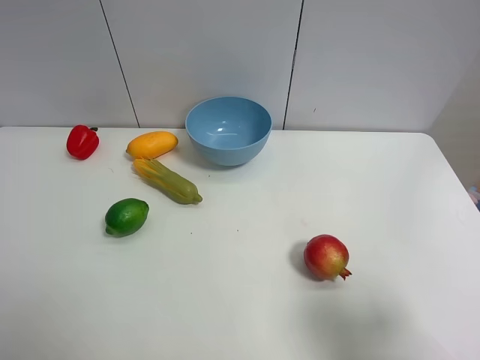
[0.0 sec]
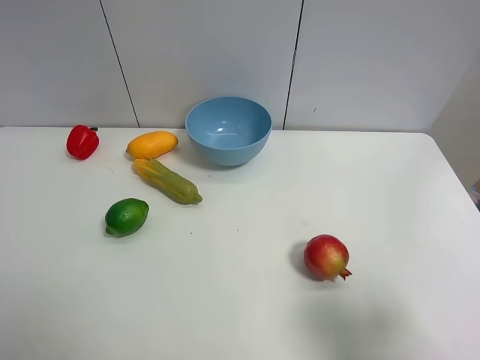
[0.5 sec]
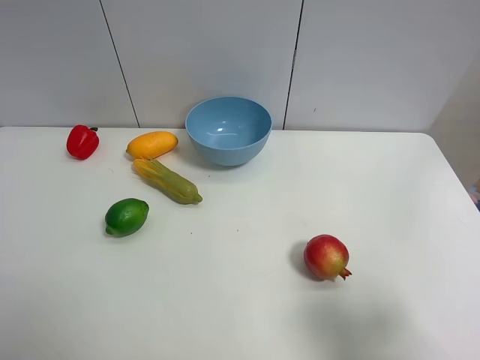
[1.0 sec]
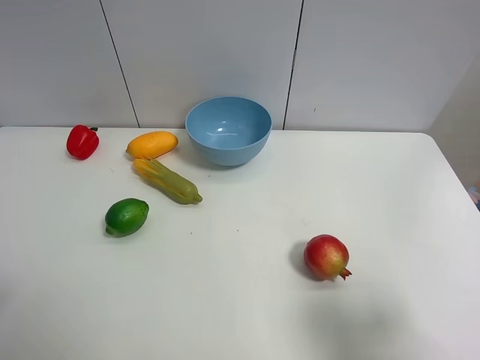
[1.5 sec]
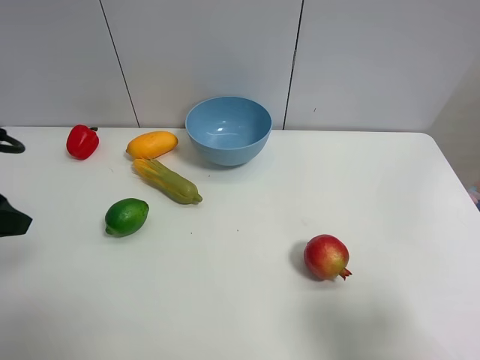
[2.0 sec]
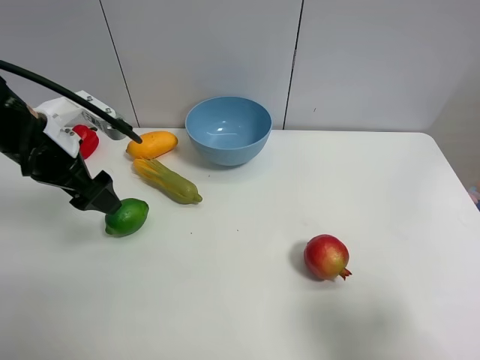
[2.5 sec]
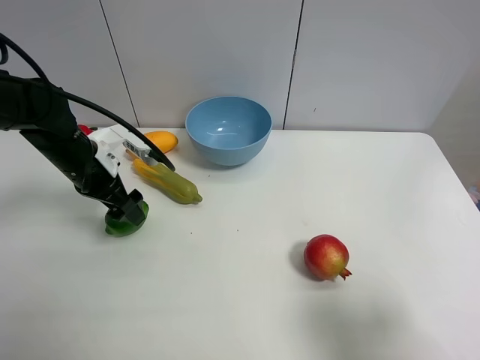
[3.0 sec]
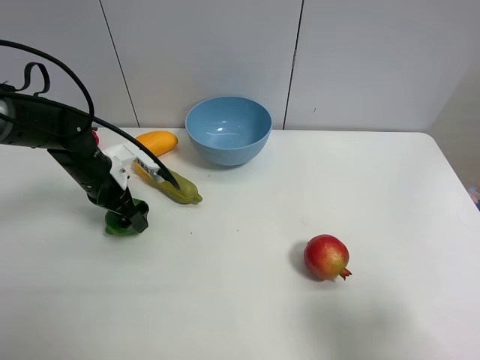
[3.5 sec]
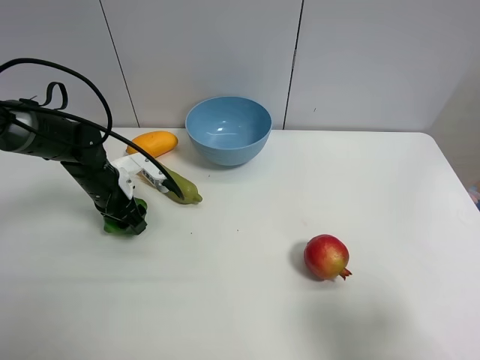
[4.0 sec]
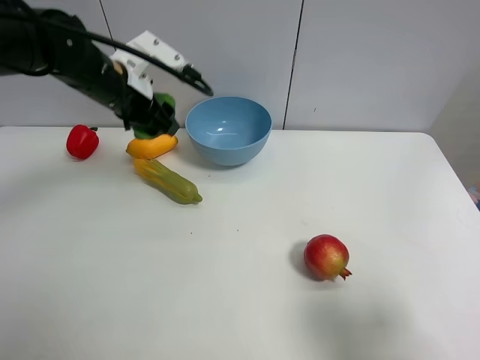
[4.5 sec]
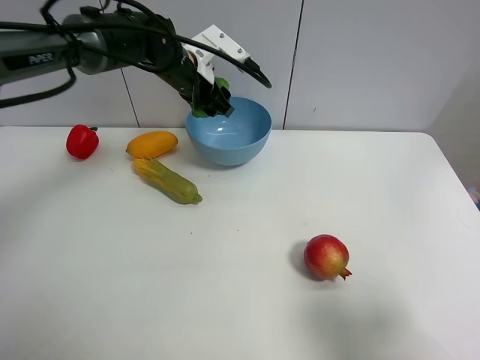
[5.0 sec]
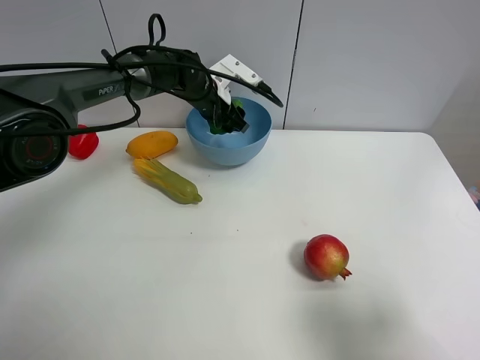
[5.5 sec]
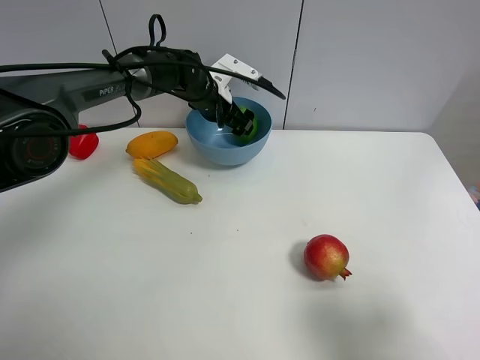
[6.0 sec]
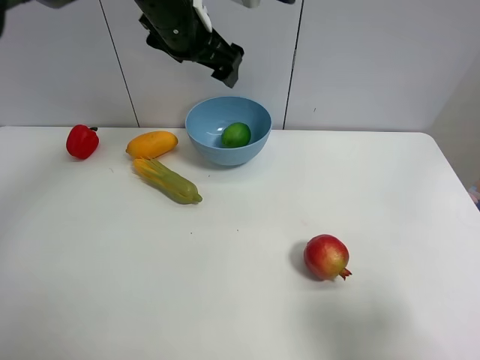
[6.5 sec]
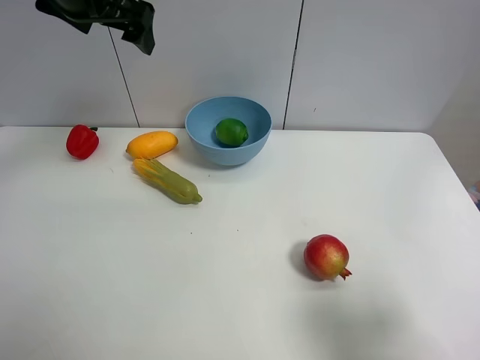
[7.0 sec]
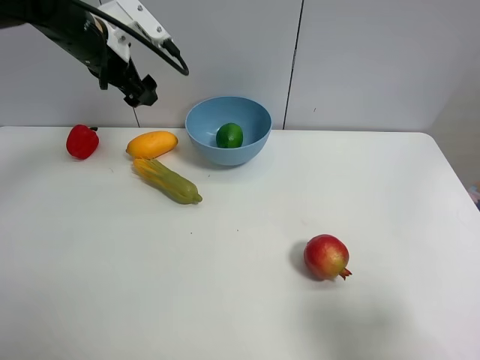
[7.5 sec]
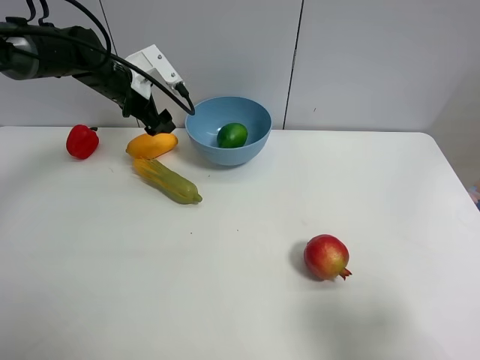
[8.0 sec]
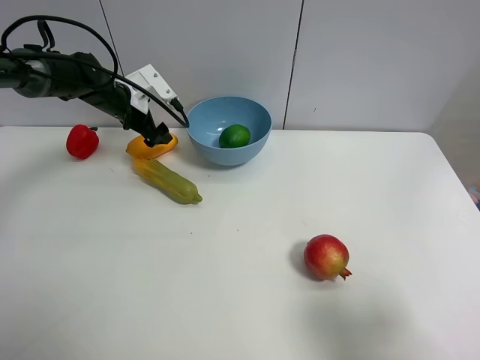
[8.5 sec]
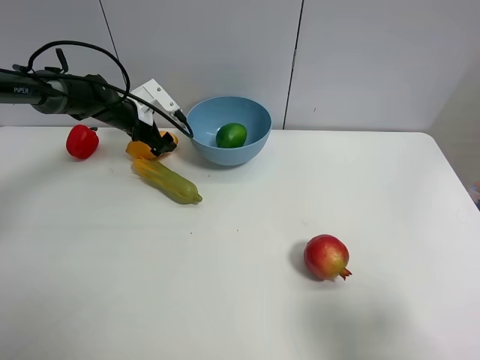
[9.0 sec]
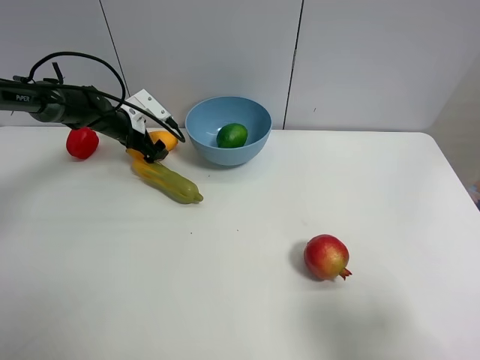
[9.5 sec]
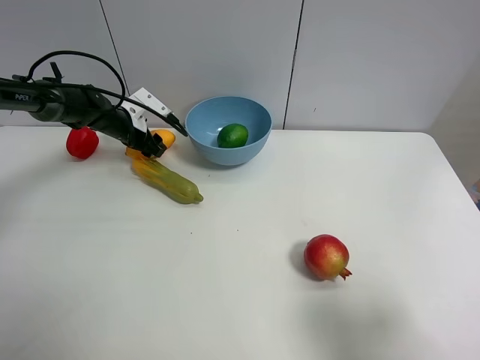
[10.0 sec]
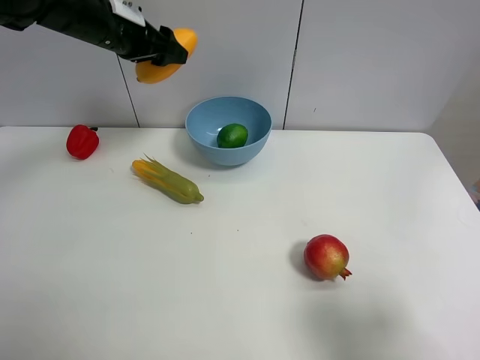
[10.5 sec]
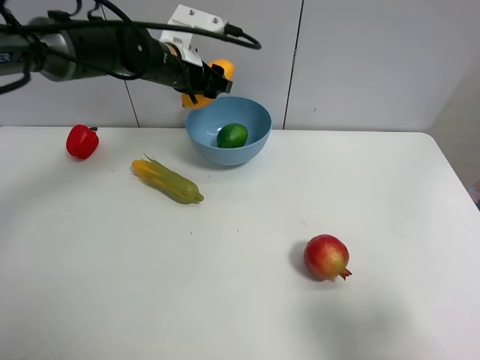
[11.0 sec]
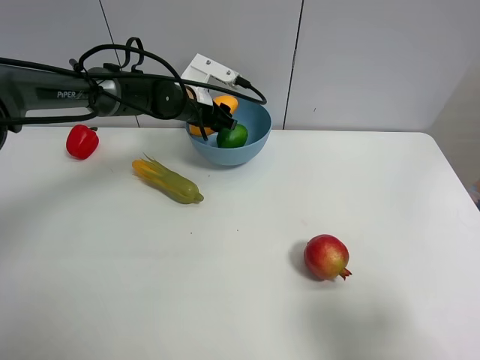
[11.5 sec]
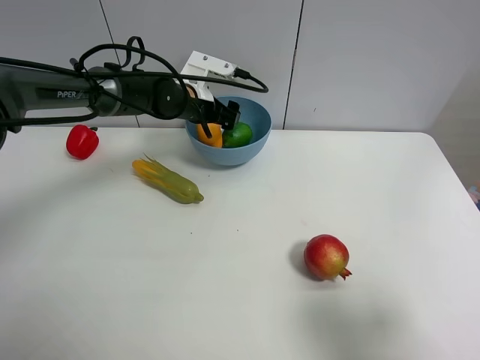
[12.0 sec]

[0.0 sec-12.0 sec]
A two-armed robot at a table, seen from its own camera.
Task of the whole recording: Put the three fruits on the table into a bowl.
Step, 0.0 sec to 4.0 sec: Grasp the green lemon with left gripper.
Step, 4.5 sec to 6.0 sec: Place the green lemon in the blue bowl with left gripper.
Step, 6.5 sec to 9.5 sec: Grasp the mango with left gripper.
0.0 sec to 2.0 sec: The left gripper shifts roughly 20 cm forward.
2.0 sec to 4.0 sec: The left gripper is displaced downward, forward and to the right by roughly 25 cm, and closes.
4.0 sec to 6.0 sec: The left gripper shifts about 25 cm to the right, forward and upward, and opens up.
6.0 sec to 8.0 sec: The left gripper shifts about 15 cm to the left, and moves roughly 20 cm upward and comes back.
8.0 sec to 10.0 sec: The left gripper is displaced downward by about 10 cm, and closes its fingers.
10.0 sec to 12.0 sec: The left gripper goes about 15 cm to the right, travels upward and back again, about 20 cm each way, and opens.

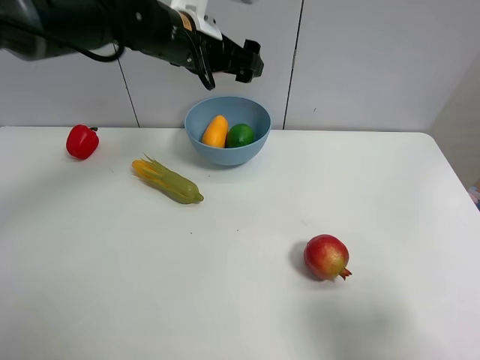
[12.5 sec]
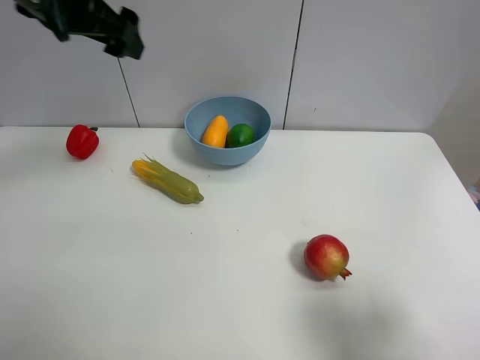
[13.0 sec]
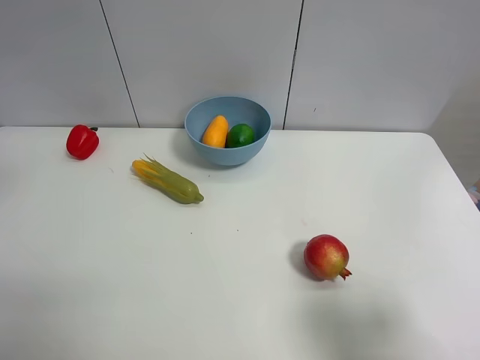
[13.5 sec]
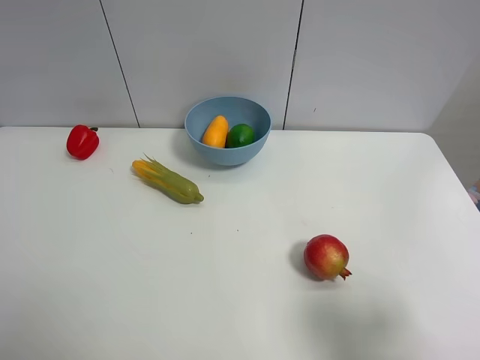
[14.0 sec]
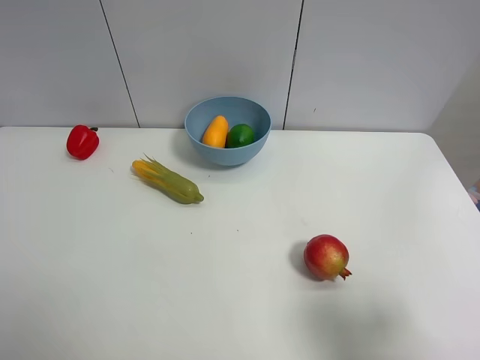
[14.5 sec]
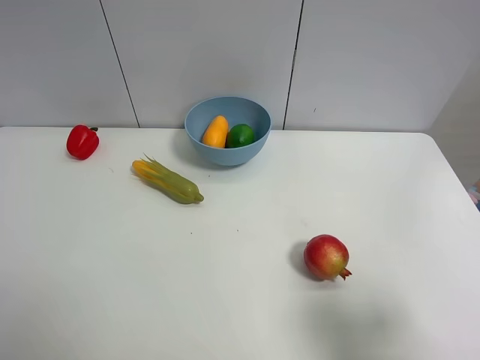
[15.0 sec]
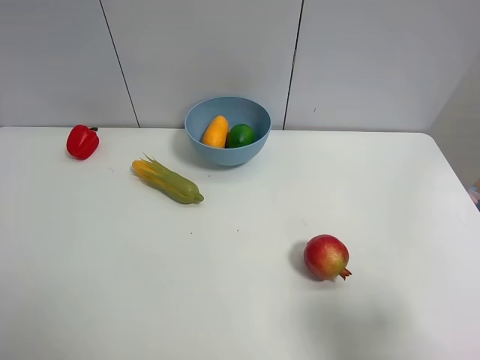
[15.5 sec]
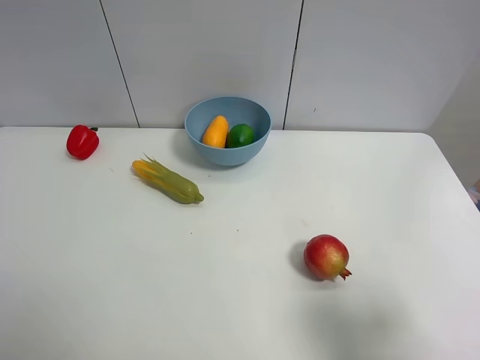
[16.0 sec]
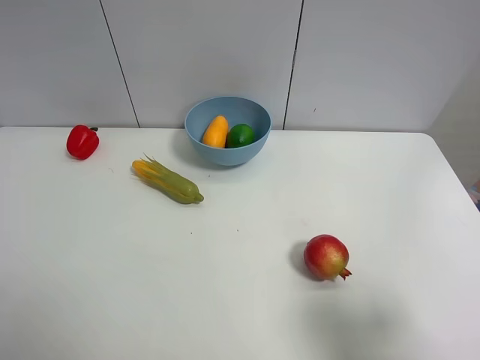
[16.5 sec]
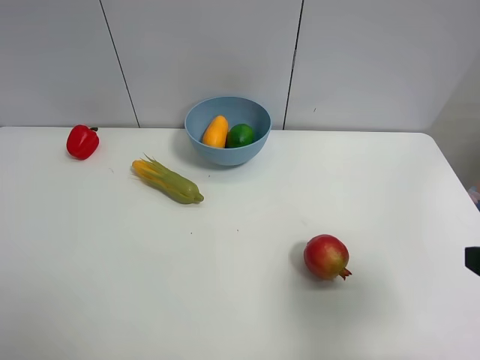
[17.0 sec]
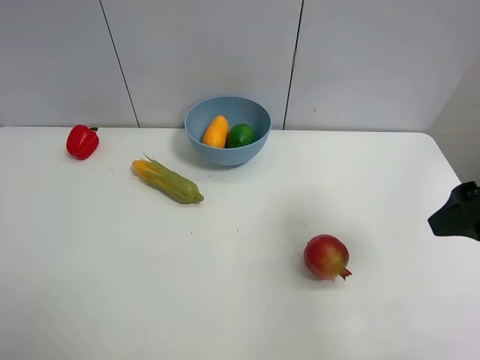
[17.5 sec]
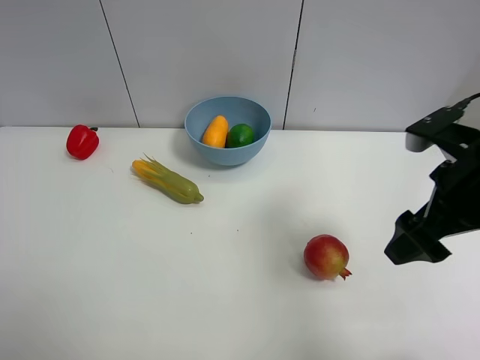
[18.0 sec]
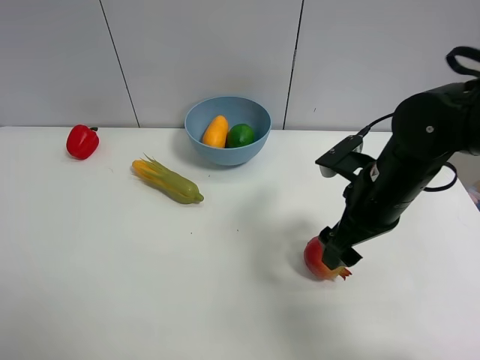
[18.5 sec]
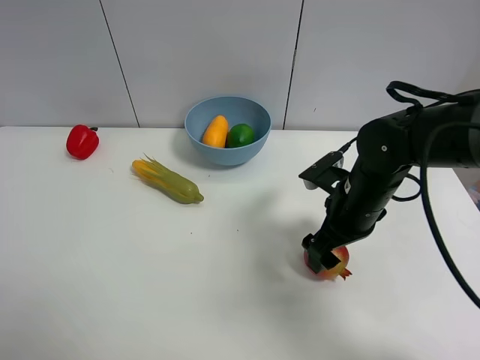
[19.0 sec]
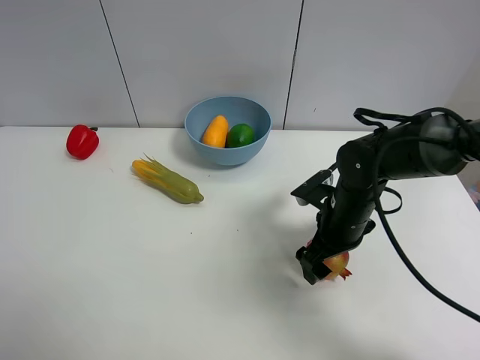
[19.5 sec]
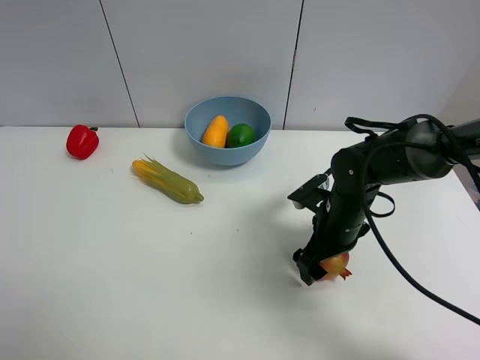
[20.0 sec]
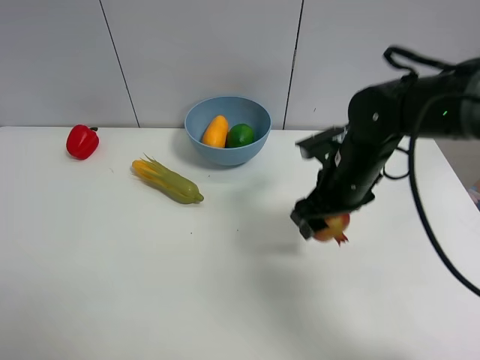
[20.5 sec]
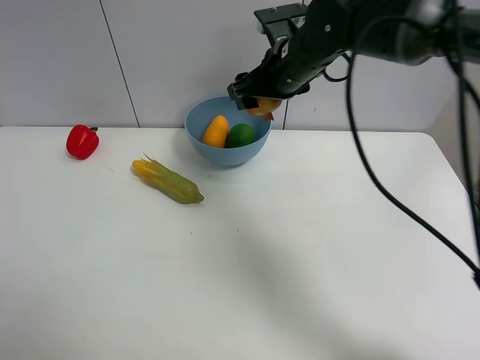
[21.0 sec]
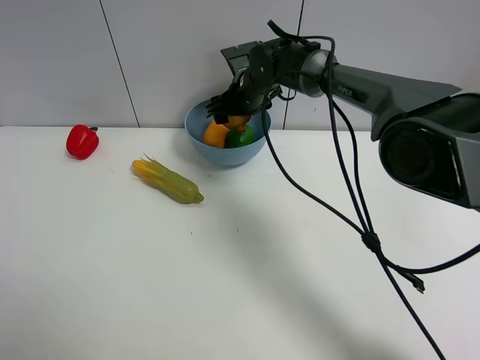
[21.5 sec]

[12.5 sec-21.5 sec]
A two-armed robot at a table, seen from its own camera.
Task of the whole recording: Put the three fruits on the table into a bowl.
Step, 12.5 sec to 20.0 sec: Grasp the pomegranate with right gripper.
12.5 sec to 14.5 sec: The left gripper goes about 50 cm backward and to the left.
14.5 sec to 17.0 sec: The right gripper goes roughly 5 cm forward.
17.0 sec to 19.5 sec: The right gripper travels forward, downward and to the left by about 30 cm.
19.5 sec to 21.5 sec: The right gripper moves forward and to the left, roughly 25 cm, and closes up.

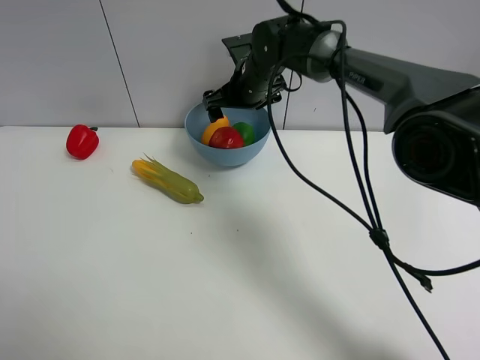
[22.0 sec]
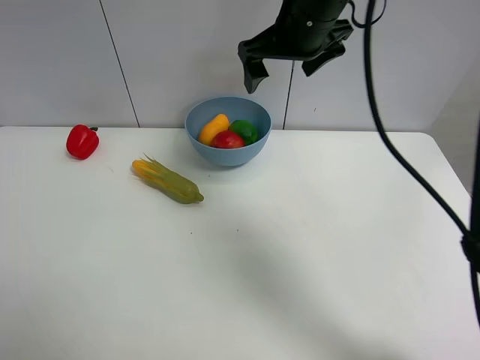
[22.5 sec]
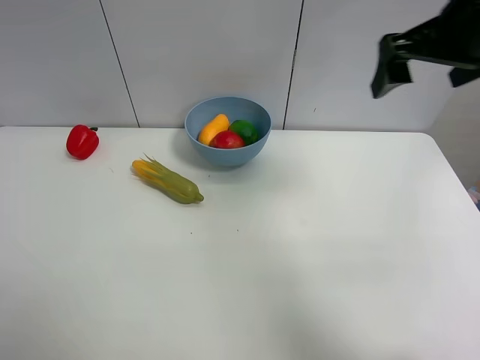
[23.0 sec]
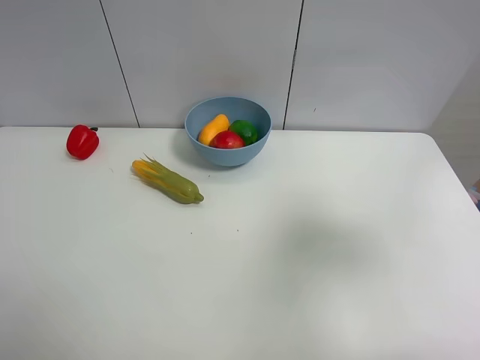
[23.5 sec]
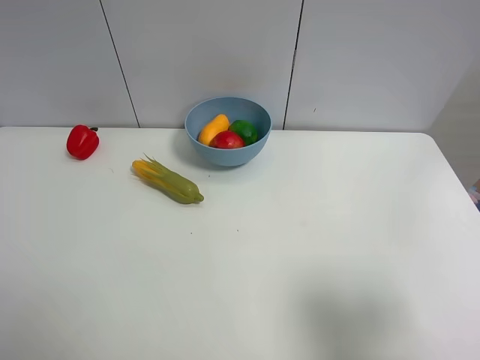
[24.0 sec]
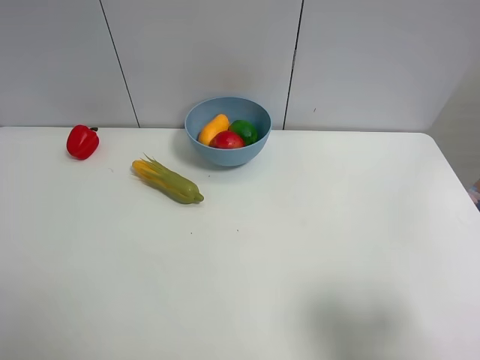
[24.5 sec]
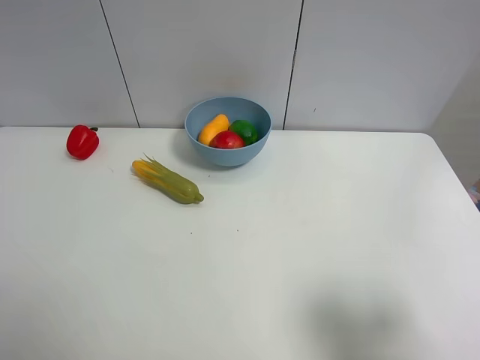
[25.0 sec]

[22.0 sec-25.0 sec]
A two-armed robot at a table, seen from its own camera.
Task of the whole recording: Put the three fruits on the table into a bowl.
22.0 sec to 23.5 sec: The right gripper heads backward, to the right and upward, covering about 50 cm.
23.5 sec to 25.0 sec: The right gripper heads backward and downward, covering some 15 cm.
